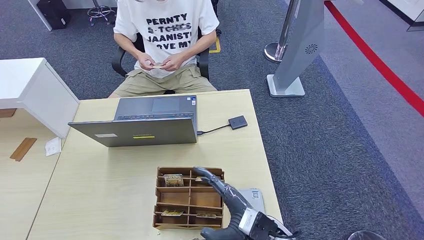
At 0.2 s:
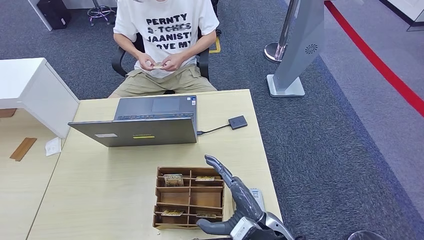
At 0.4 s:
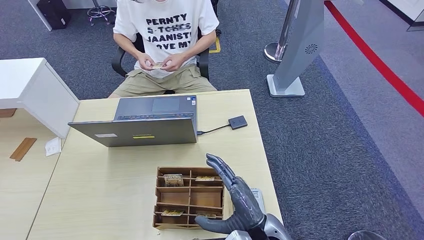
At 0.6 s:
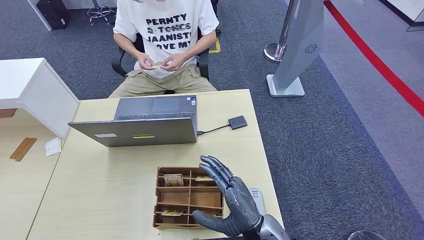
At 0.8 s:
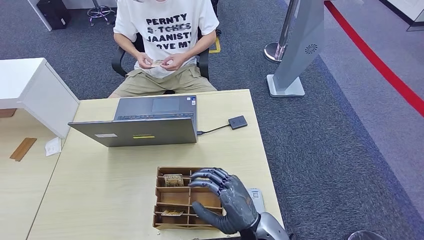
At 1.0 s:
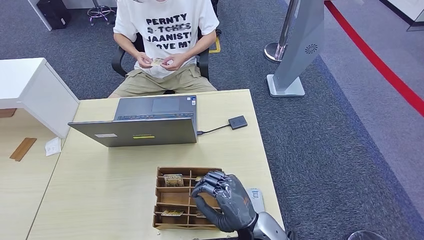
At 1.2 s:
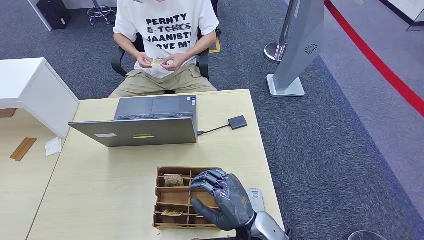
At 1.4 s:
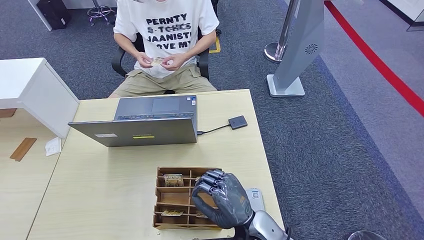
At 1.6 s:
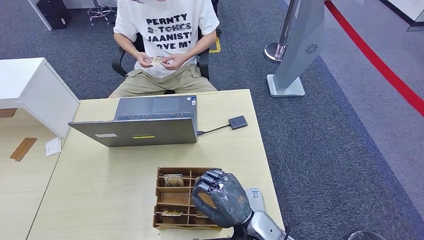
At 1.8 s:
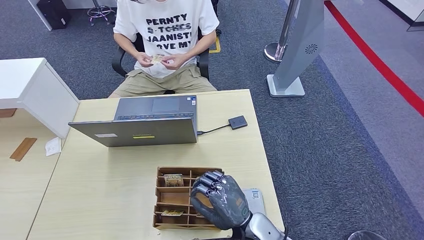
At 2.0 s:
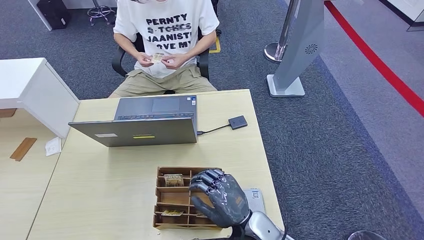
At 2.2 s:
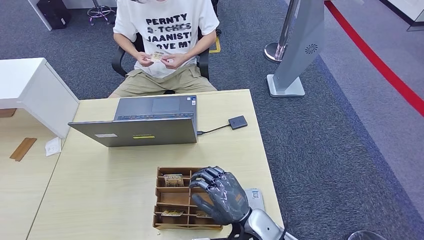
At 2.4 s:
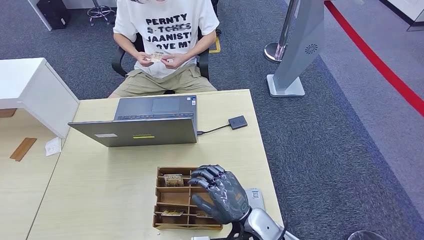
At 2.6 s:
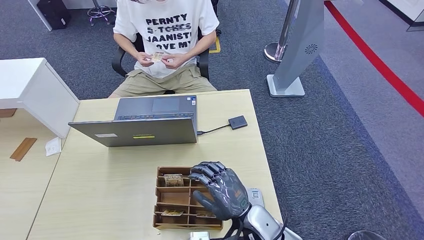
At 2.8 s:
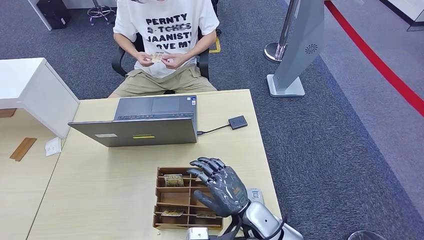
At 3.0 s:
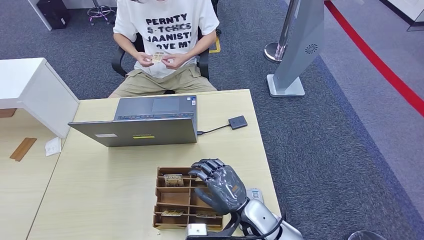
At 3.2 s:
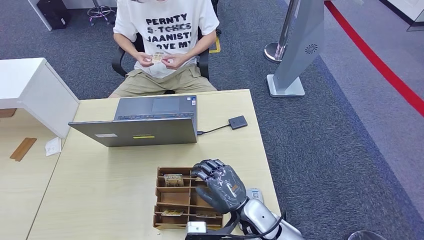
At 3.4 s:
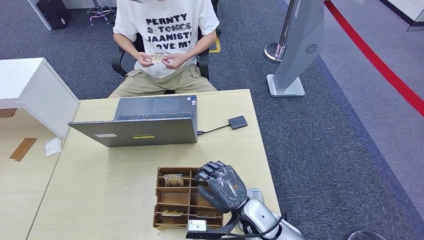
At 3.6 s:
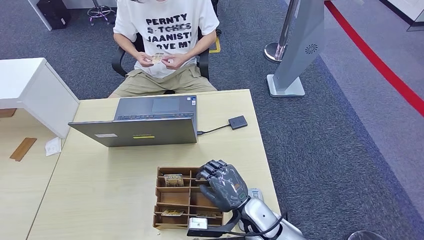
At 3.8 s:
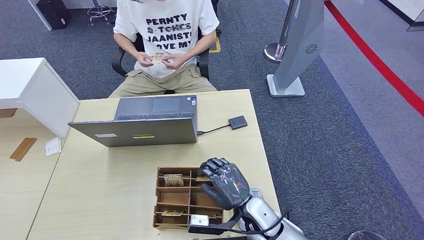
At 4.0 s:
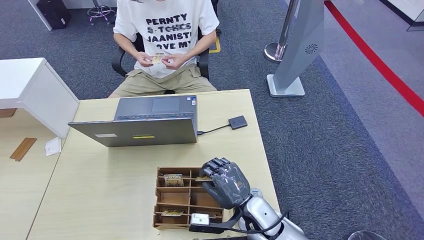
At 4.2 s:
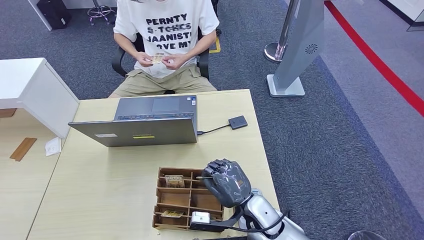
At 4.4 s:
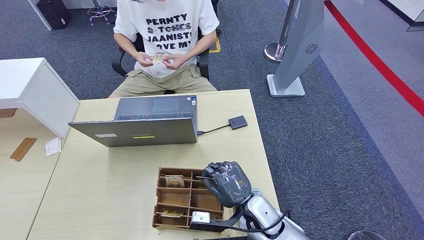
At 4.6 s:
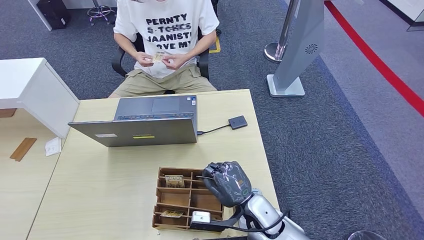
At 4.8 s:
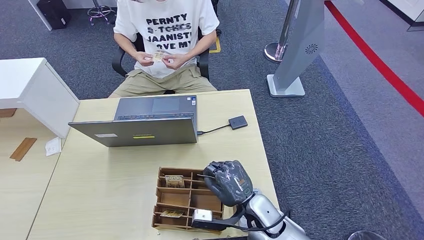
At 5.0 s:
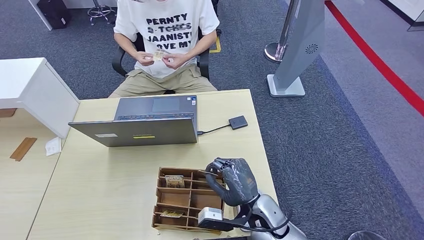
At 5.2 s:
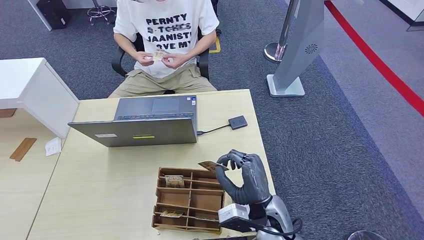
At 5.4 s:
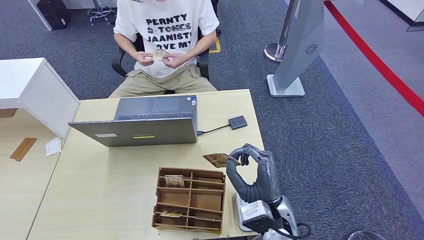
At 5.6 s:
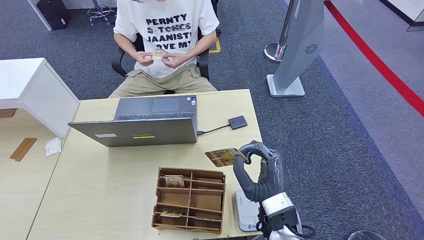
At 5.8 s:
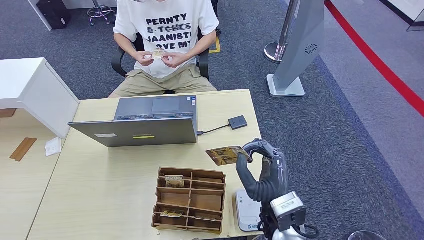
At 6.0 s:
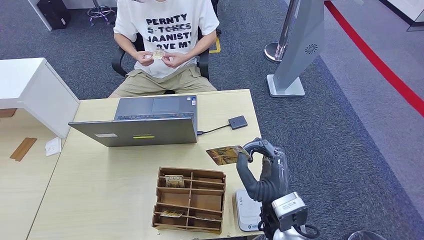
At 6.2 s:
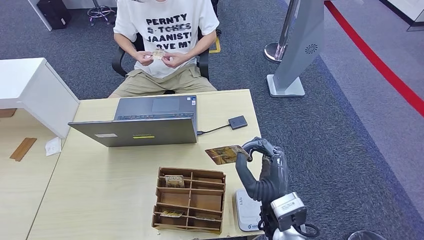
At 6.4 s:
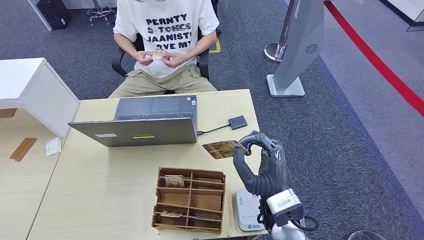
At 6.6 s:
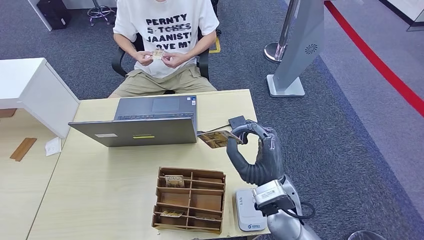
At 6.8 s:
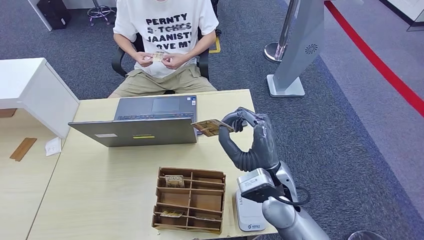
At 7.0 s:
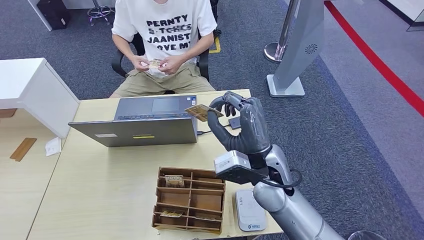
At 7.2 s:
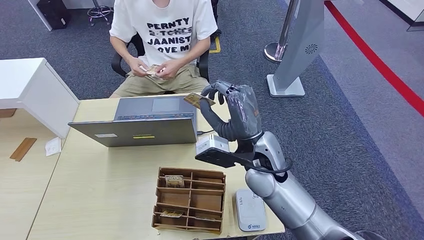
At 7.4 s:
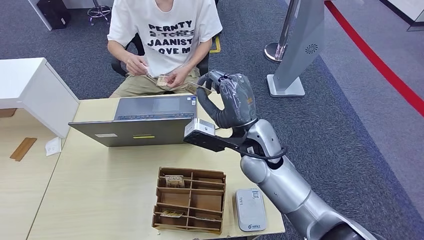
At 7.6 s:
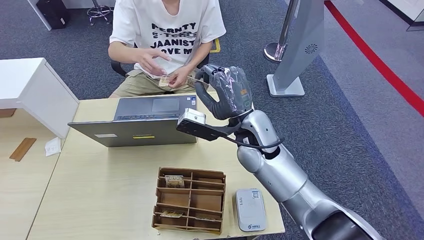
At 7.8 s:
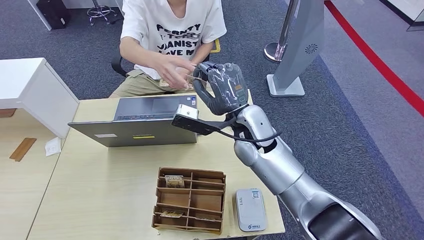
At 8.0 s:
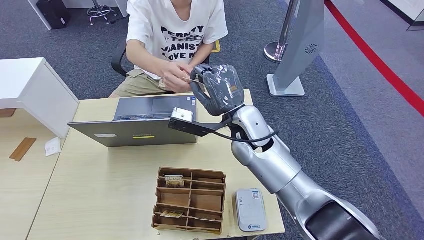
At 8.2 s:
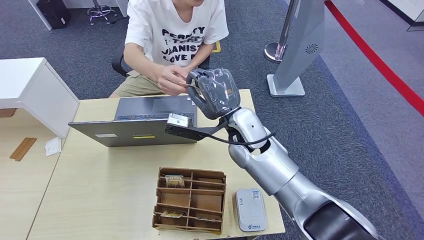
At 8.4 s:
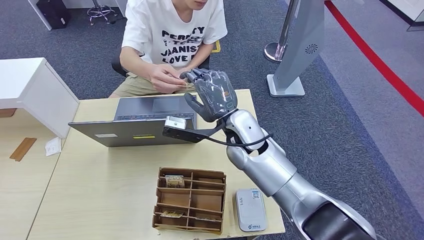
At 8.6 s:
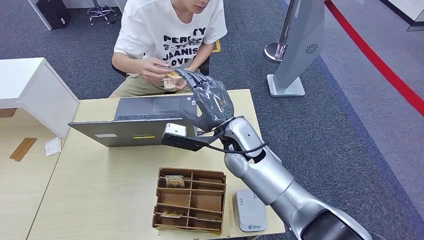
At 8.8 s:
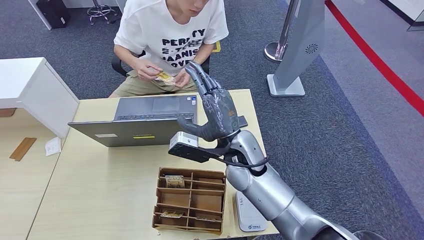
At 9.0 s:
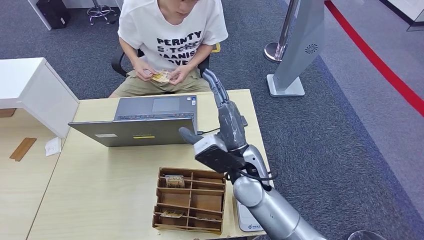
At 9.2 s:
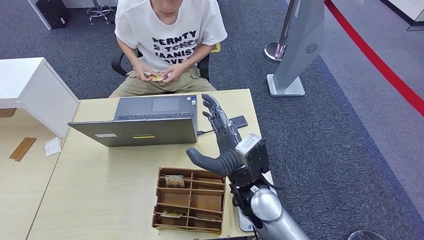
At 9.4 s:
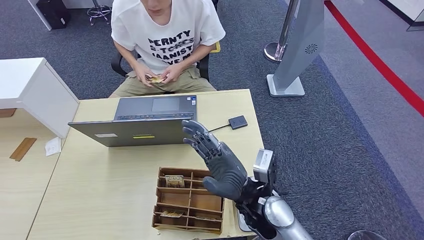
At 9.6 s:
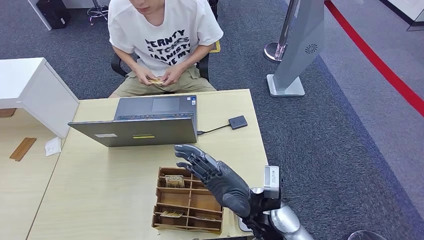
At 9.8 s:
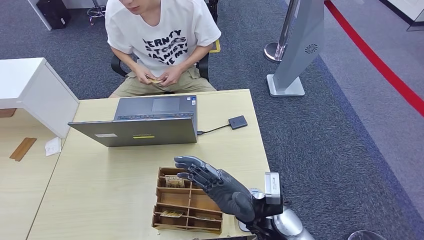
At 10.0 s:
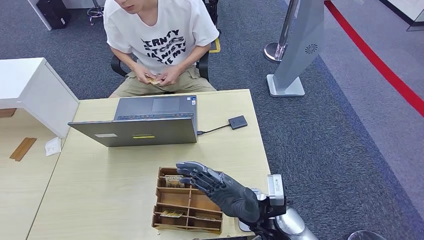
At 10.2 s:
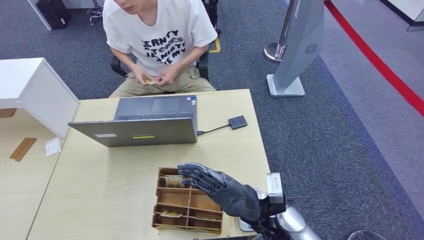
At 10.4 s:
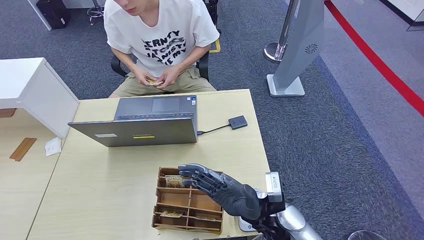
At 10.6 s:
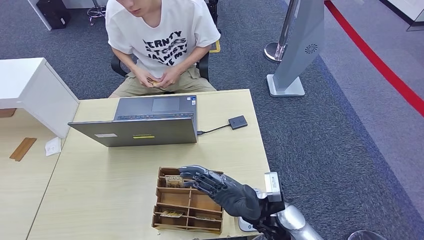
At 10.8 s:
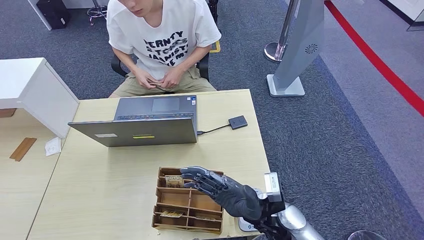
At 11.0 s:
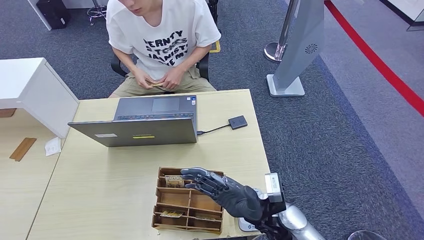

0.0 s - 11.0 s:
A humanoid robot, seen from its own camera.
Step, 0.0 s - 6.2 s: Pick up the room key from the key card box.
1.6 s - 4.8 s: There are only small adjustments of the hands.
4.8 s - 6.2 s: The right hand goes roughly 10 cm upward.
6.2 s - 7.8 s: The left hand moves forward, some 5 cm, while the right hand heads forward and upward, covering about 20 cm.
7.8 s - 9.4 s: The right hand is displaced backward and downward by roughly 15 cm.
9.4 s - 11.0 s: The right hand travels downward by some 5 cm.

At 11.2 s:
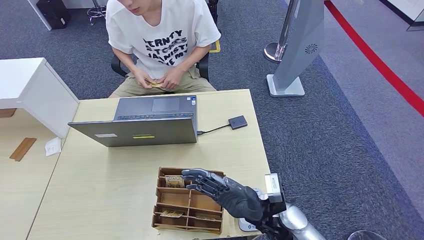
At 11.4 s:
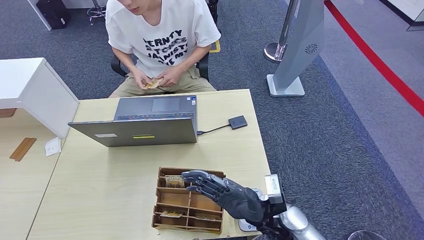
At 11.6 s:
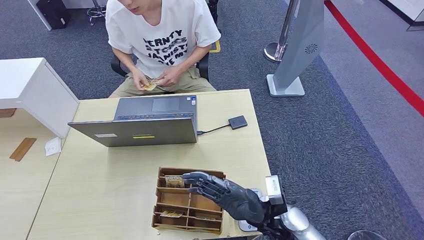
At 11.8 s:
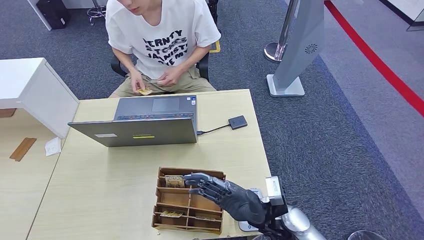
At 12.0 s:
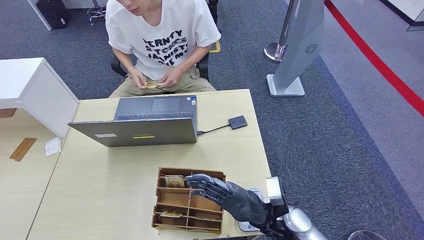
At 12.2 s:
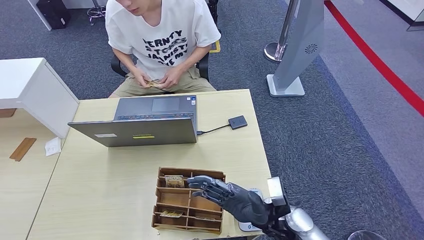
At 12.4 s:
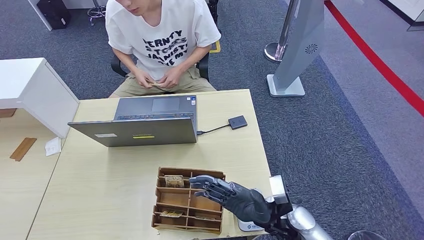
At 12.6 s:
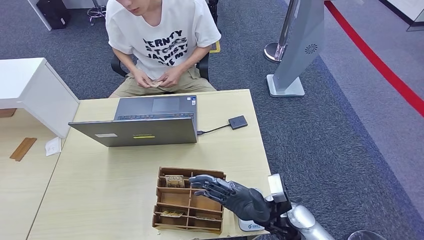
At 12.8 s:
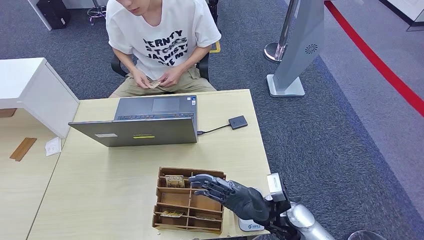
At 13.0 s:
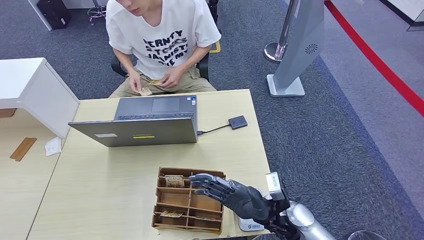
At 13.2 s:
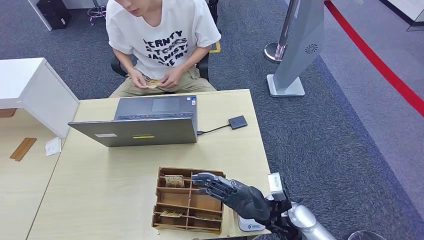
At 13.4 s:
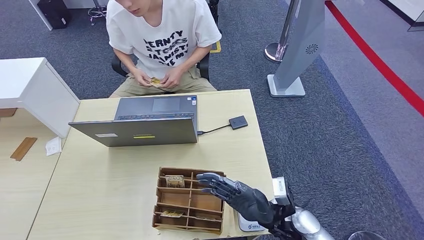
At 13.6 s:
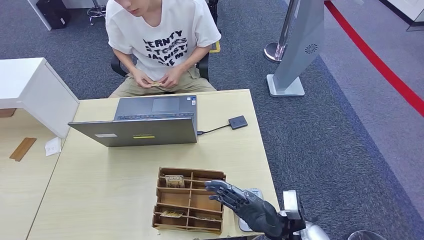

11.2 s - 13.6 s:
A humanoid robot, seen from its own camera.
Step, 11.2 s - 13.6 s: Hand the room key to the person.
11.2 s - 12.4 s: The hands make only small movements.
